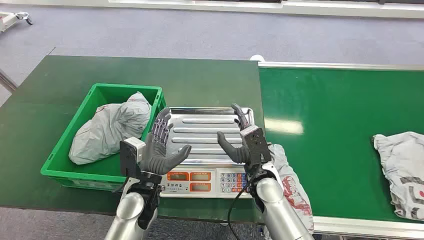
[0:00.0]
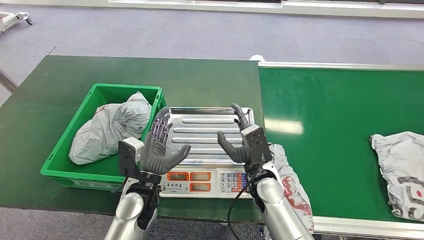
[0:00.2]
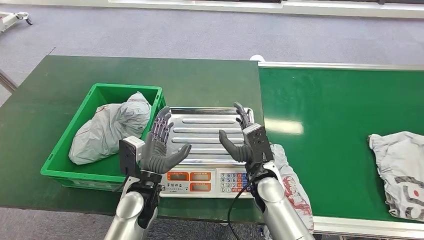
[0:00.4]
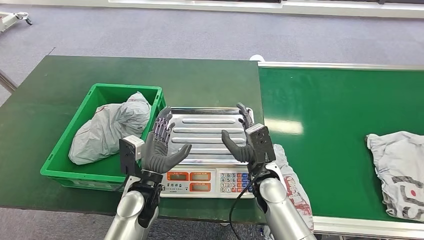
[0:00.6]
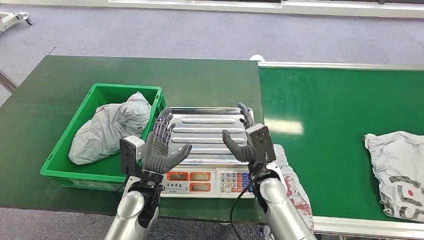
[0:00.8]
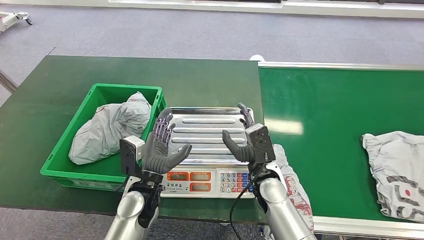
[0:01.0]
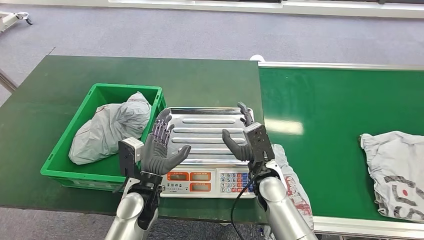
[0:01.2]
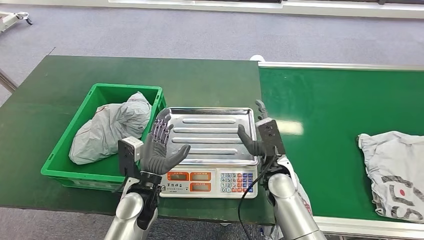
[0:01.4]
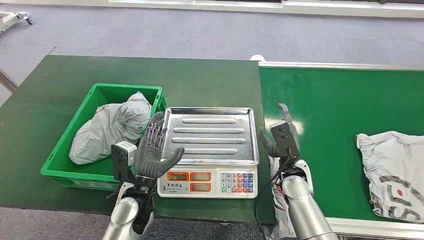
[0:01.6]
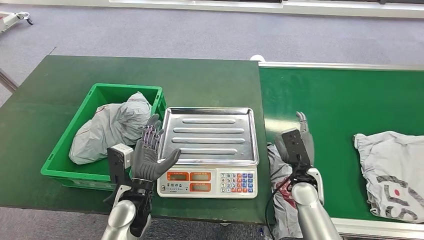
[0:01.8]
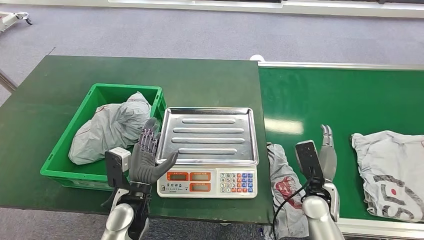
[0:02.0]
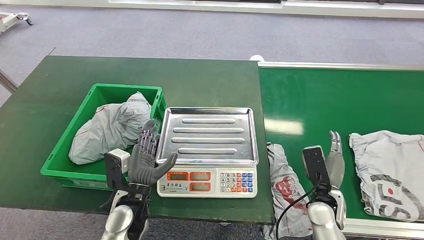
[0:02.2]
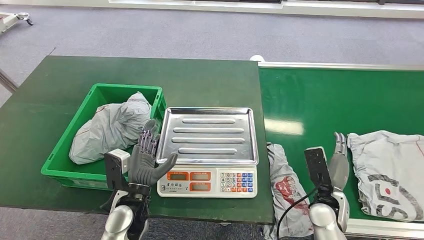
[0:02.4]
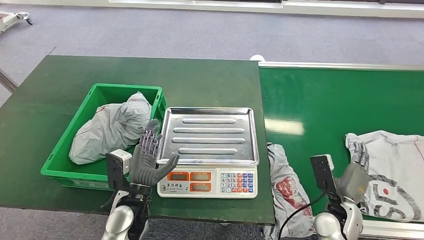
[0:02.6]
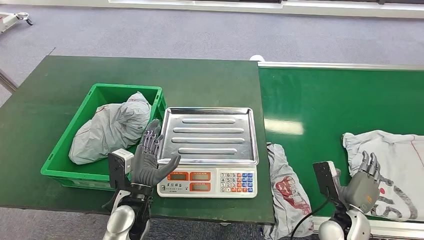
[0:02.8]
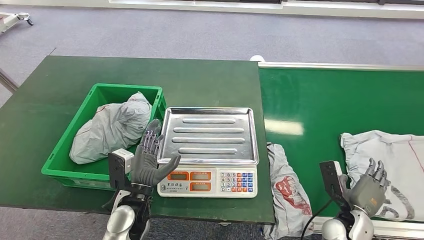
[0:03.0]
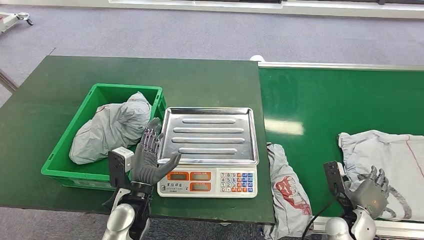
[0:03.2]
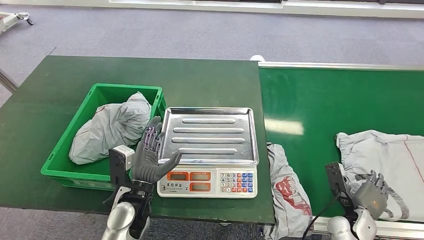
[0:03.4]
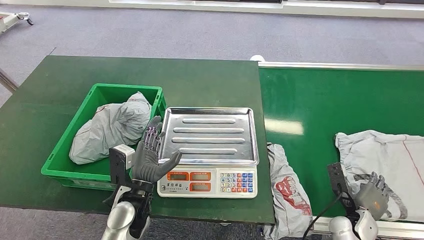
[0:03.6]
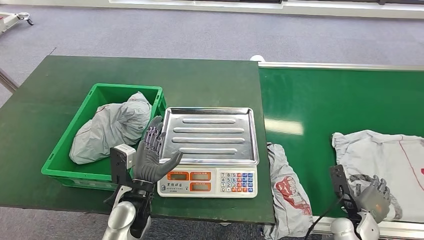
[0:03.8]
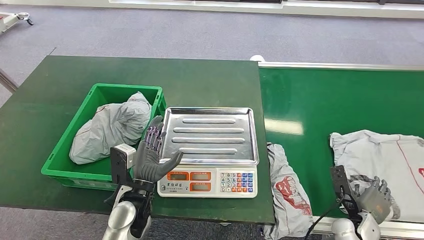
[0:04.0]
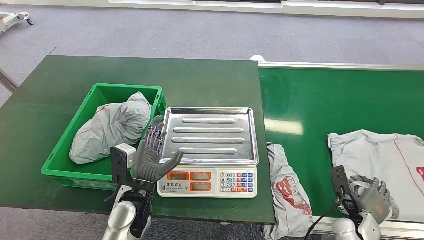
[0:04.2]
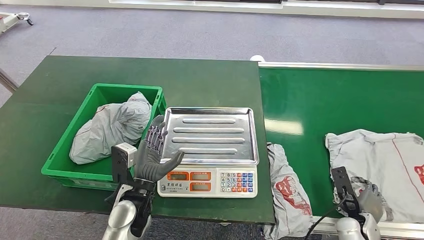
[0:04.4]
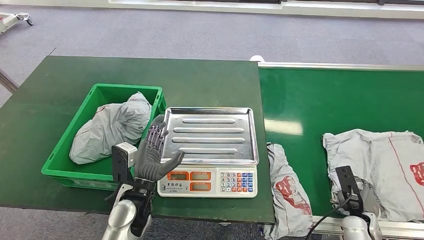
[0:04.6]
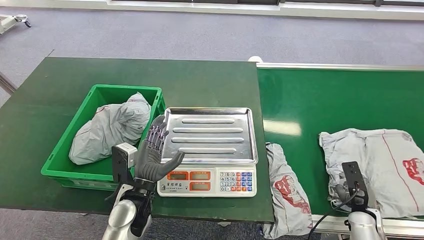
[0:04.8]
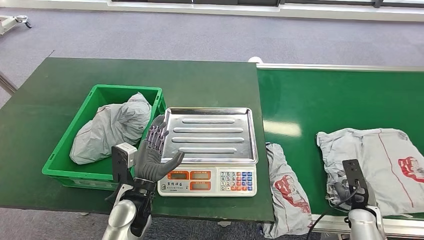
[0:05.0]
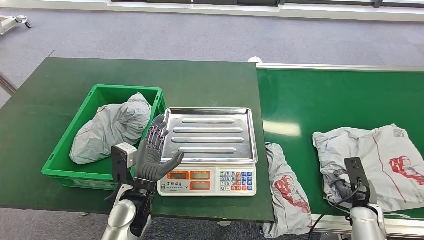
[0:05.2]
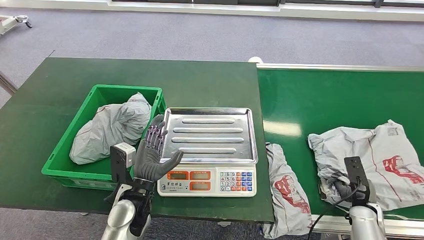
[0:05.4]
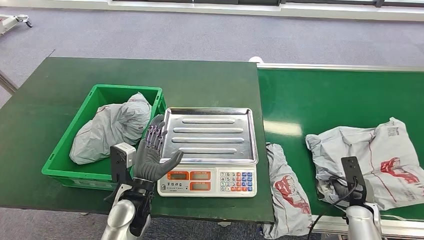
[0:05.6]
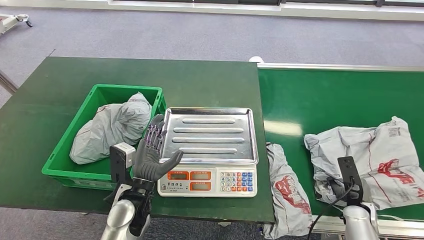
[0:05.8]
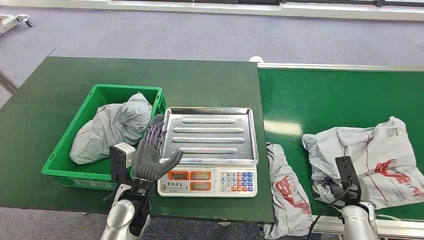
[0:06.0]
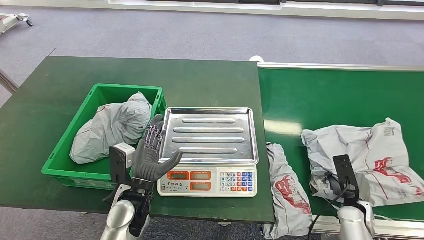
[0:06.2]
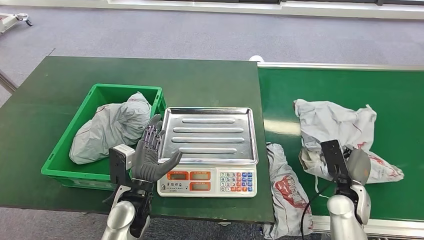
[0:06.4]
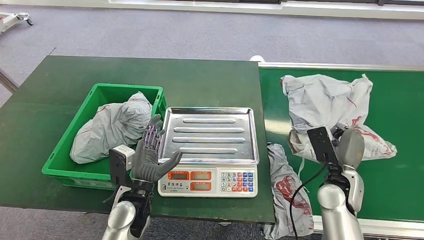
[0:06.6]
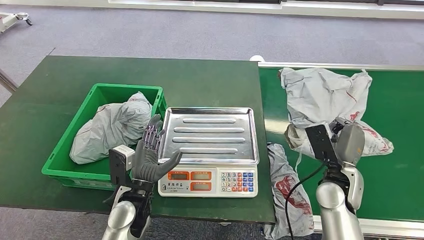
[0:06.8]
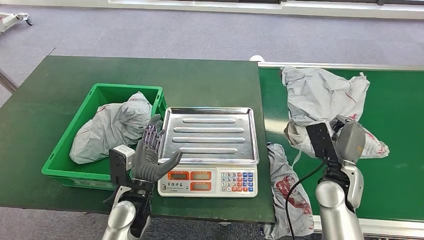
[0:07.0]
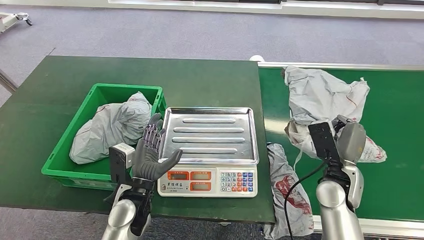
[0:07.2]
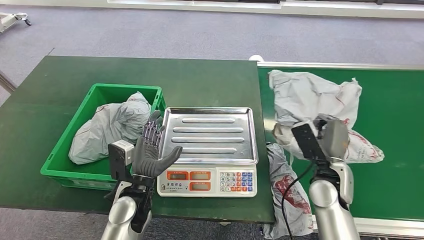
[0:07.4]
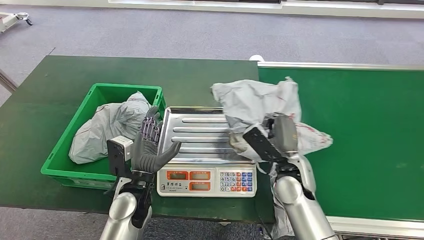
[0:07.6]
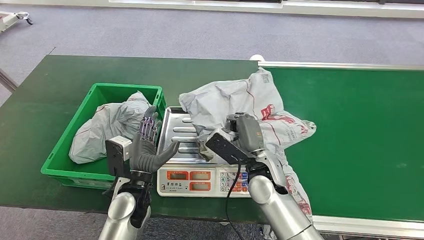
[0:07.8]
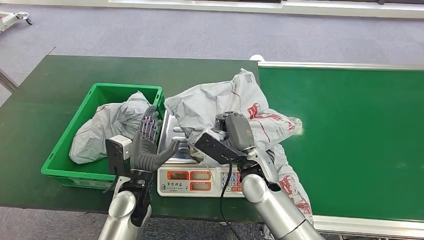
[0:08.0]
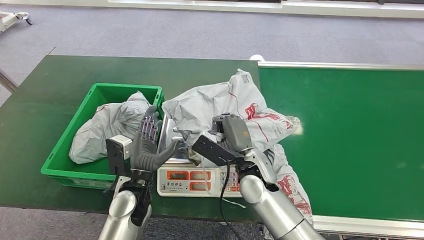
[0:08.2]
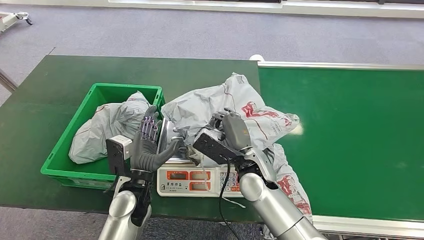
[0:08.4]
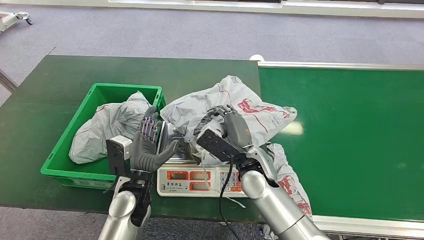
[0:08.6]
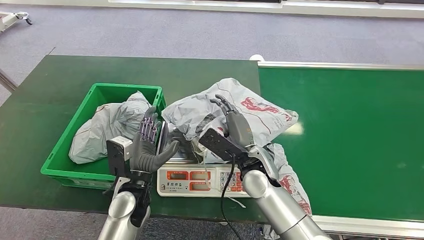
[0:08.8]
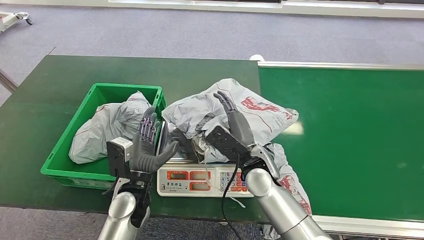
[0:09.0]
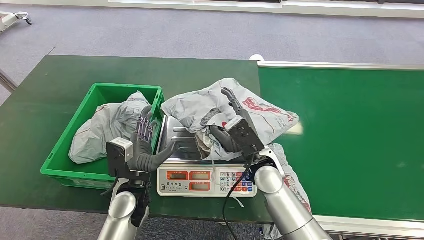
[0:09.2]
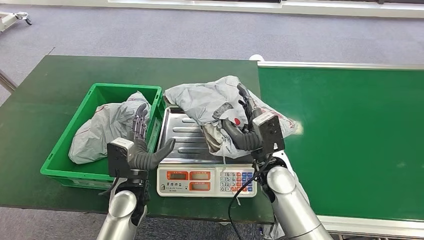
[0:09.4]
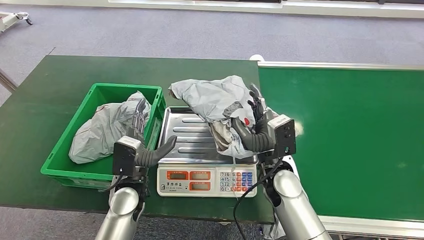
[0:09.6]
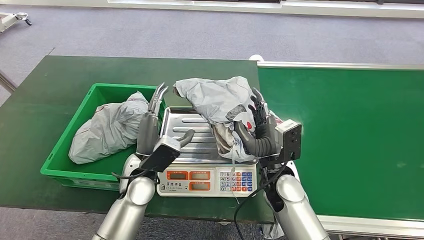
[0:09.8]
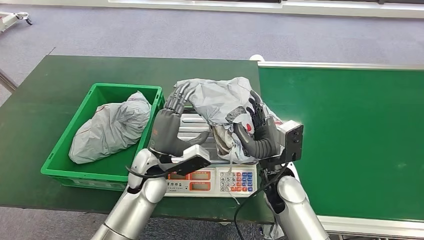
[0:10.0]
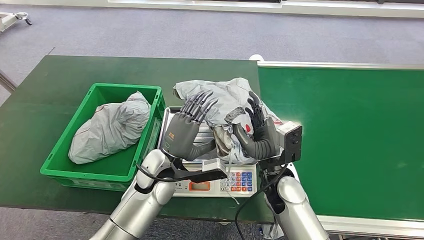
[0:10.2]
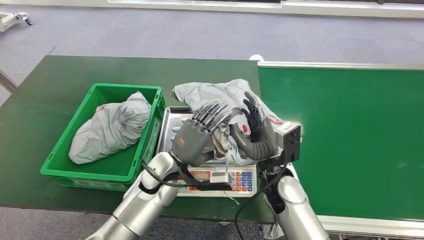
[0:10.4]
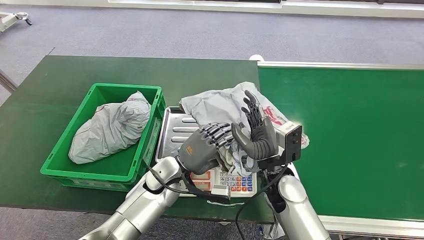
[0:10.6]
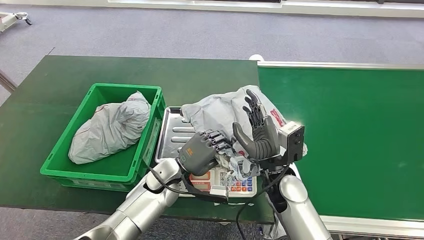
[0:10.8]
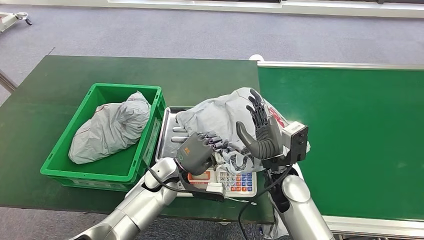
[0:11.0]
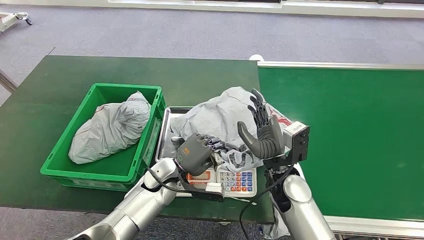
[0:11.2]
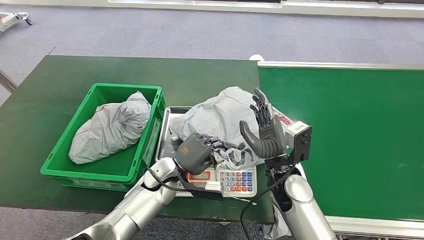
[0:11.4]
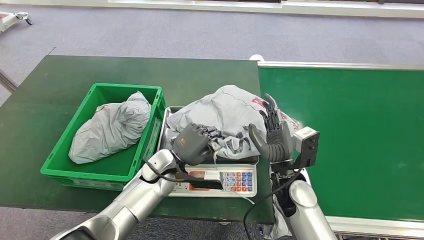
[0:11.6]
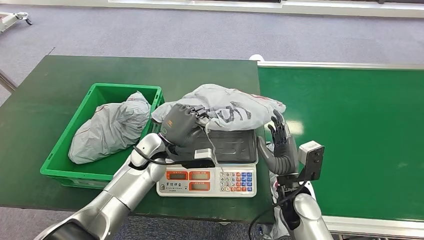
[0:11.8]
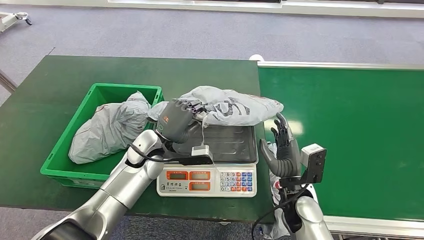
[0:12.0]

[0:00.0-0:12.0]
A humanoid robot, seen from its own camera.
Step, 0:00.0 to 0:06.8: Pick up the package from the conveyor belt.
Step, 0:07.0 to 0:09.6: Place the package onto the inbound machine.
0:01.6 to 0:03.0: The right hand moves to the right, backward and downward, some 20 cm.
0:03.0 to 0:04.4: The right hand moves to the right, approximately 5 cm.
0:07.6 to 0:09.0: The right hand shifts some 10 cm to the left.
0:09.0 to 0:10.4: The left hand travels forward by roughly 5 cm. The right hand ends up some 5 cm from where it was.

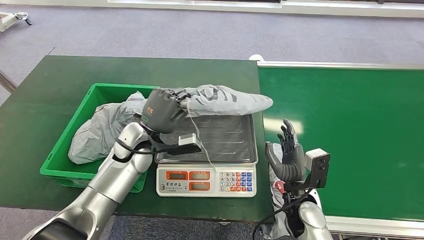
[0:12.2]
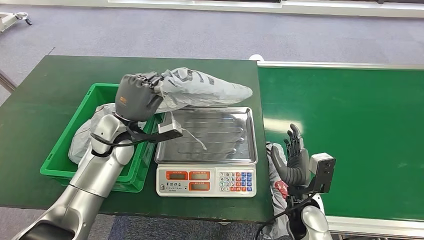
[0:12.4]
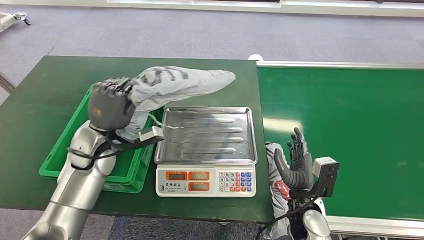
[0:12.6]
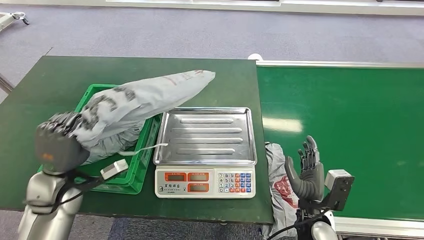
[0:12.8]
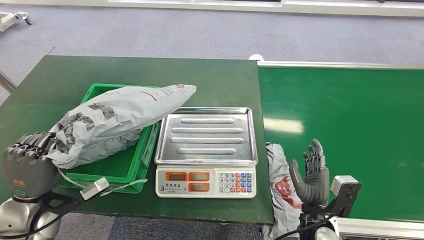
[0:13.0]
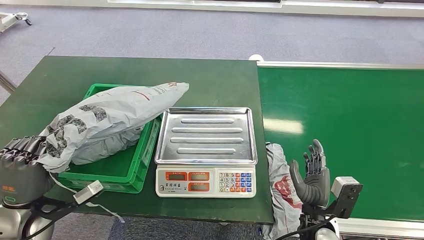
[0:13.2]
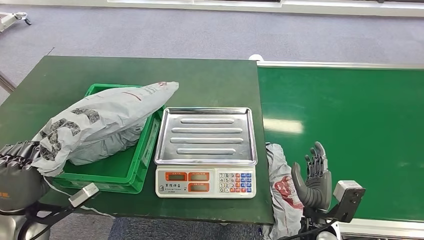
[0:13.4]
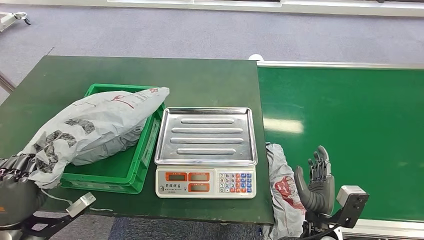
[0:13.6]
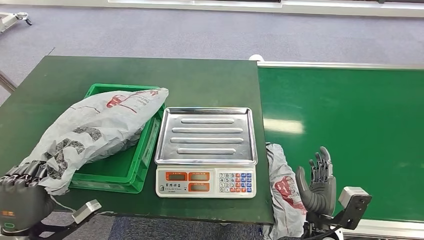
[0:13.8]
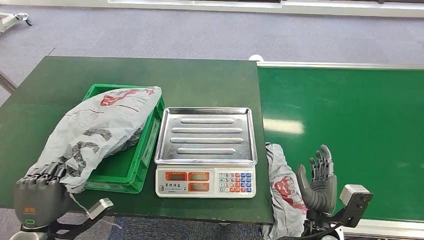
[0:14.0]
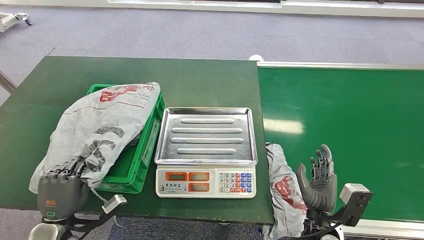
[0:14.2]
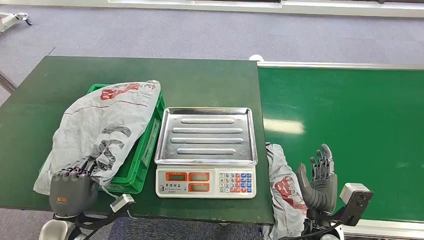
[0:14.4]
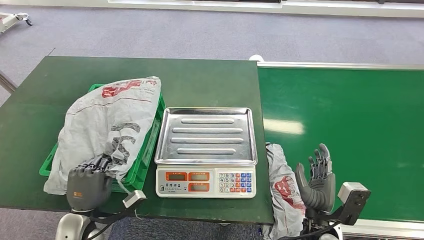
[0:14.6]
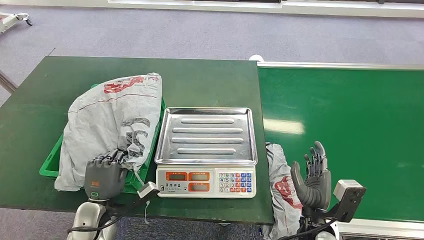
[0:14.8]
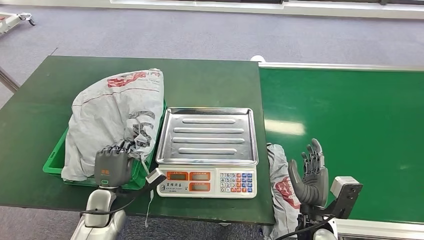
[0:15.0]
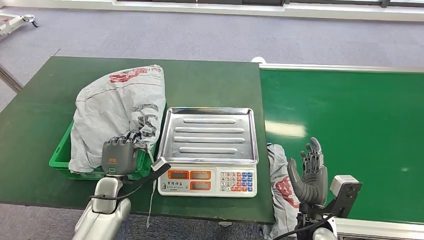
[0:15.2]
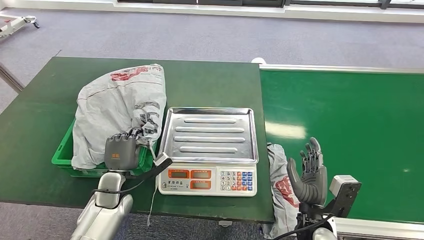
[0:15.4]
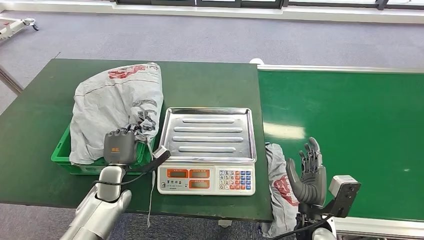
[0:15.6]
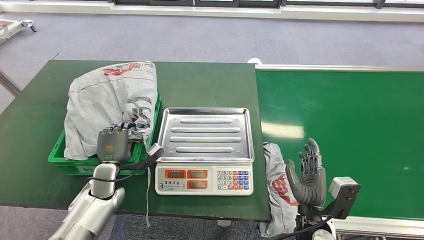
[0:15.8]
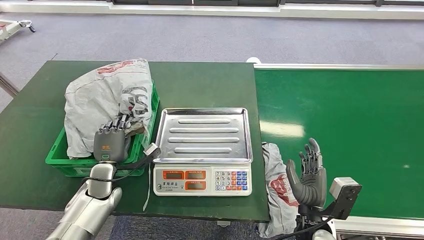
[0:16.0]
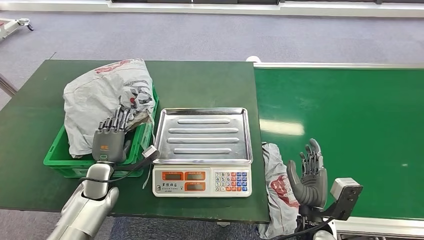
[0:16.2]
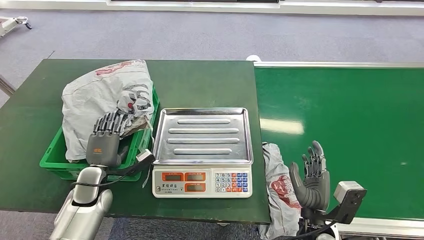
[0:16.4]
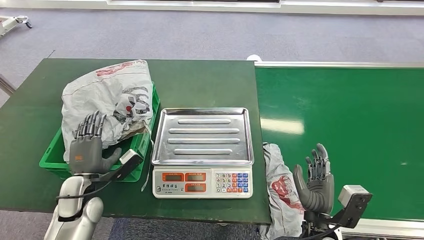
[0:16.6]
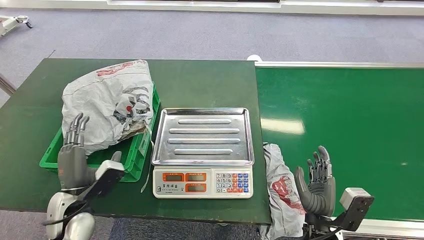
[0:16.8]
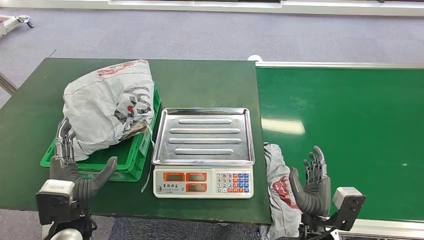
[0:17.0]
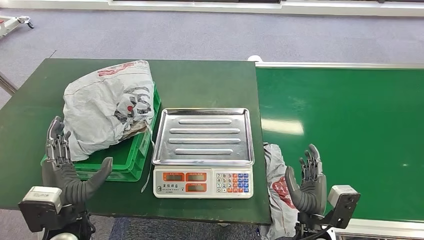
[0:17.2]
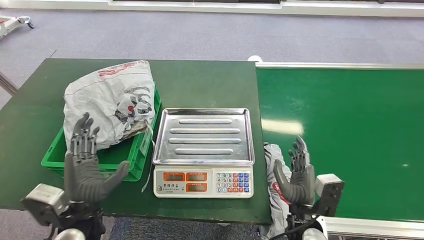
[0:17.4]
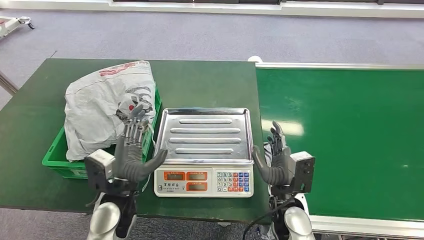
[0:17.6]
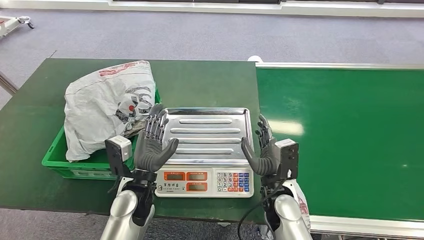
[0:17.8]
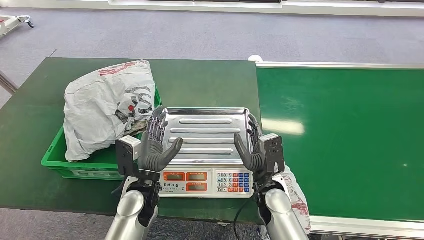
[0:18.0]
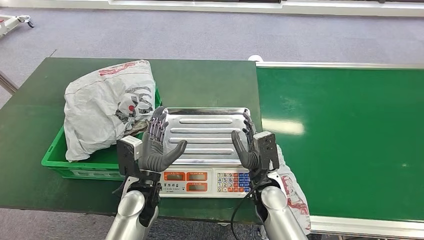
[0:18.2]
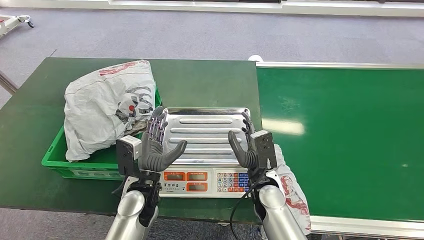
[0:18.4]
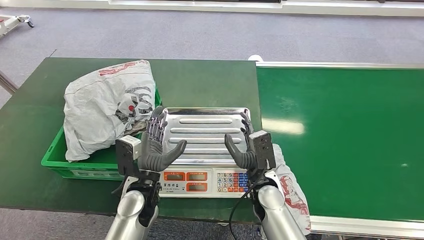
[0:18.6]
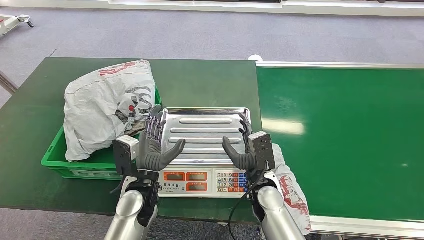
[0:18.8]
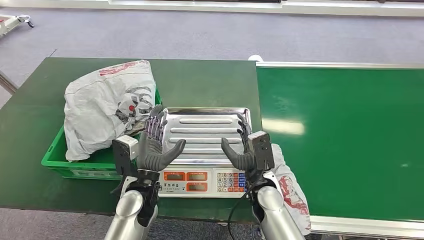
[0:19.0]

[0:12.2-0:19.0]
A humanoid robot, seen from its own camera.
Step, 0:13.0 to 0:18.8: Place the package into the parcel locker.
0:16.2 to 0:17.6: The left hand moves to the right, upward and backward, approximately 15 cm. The right hand travels to the left by roughly 5 cm.
0:17.6 to 0:19.0: The left hand shifts by approximately 5 cm; the right hand goes some 5 cm to the left.
